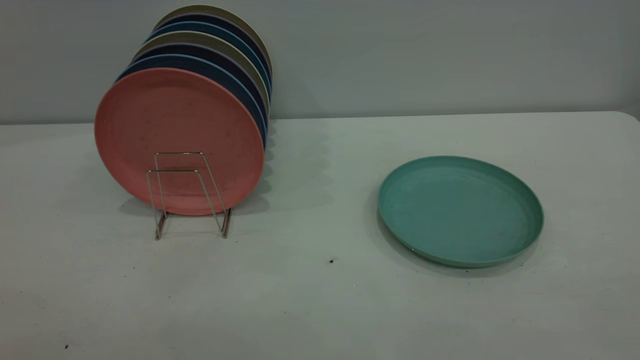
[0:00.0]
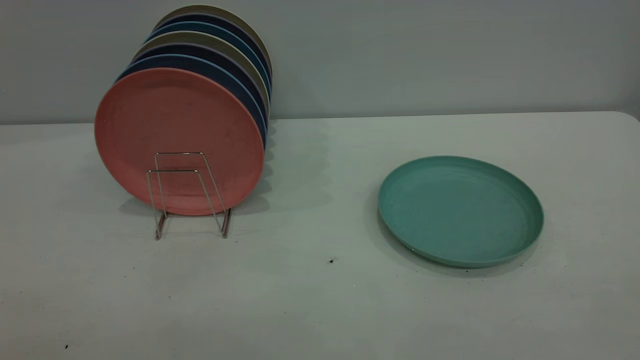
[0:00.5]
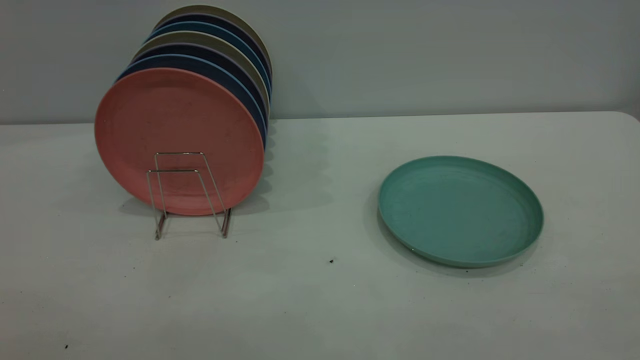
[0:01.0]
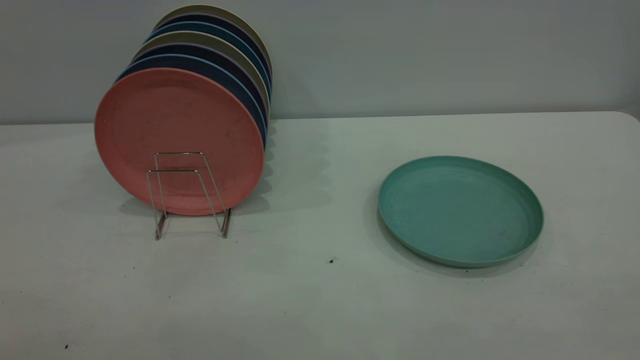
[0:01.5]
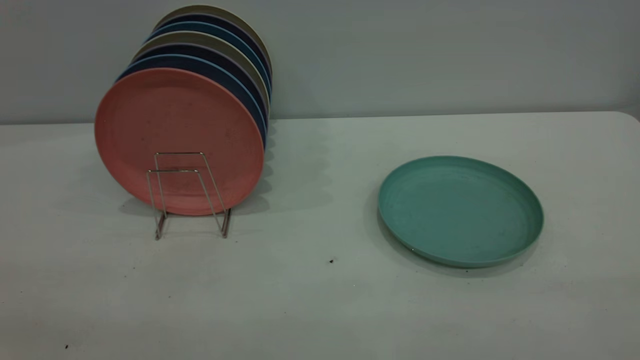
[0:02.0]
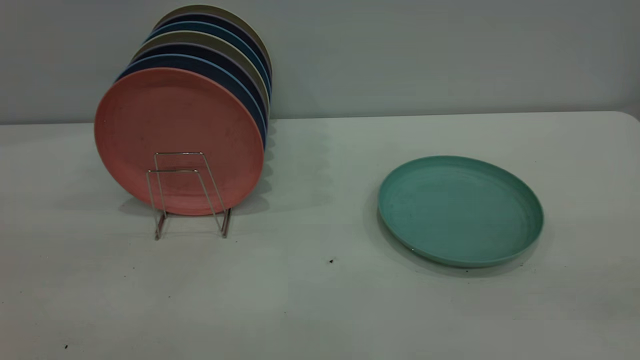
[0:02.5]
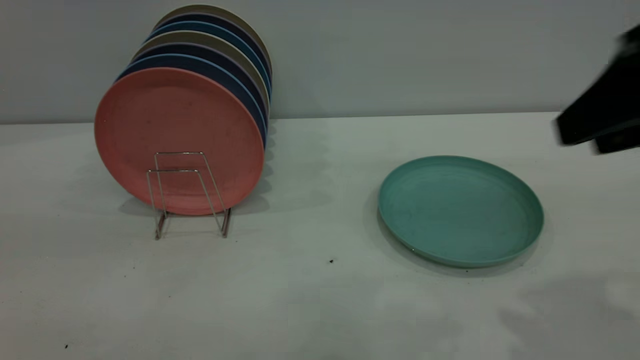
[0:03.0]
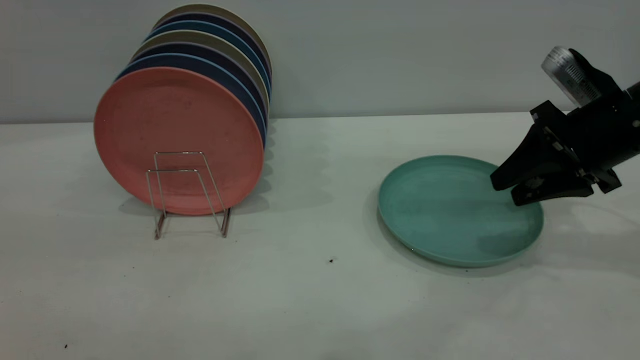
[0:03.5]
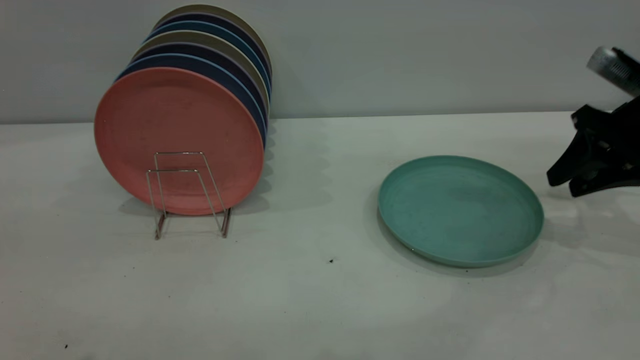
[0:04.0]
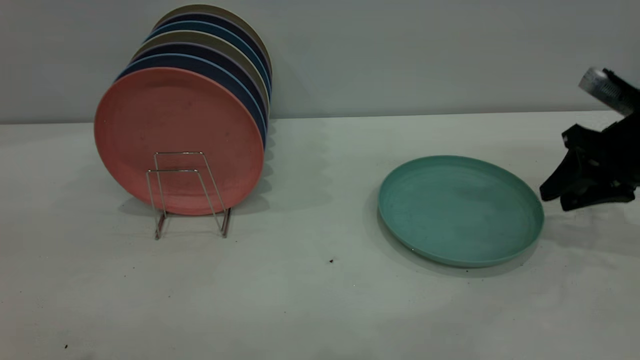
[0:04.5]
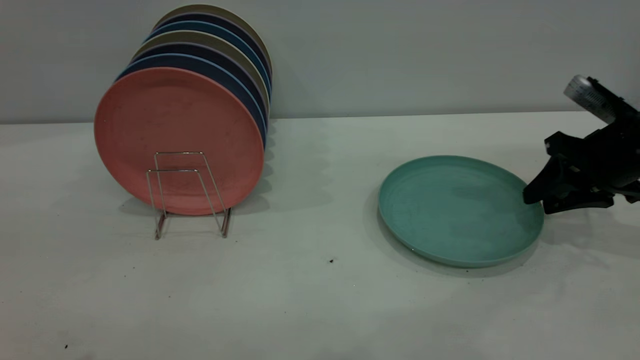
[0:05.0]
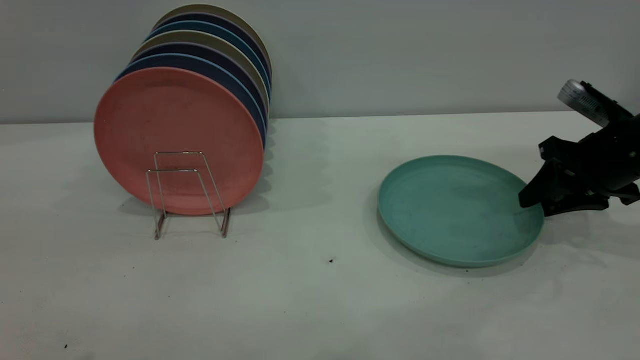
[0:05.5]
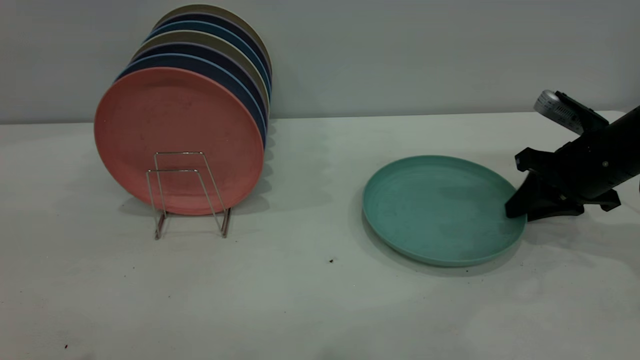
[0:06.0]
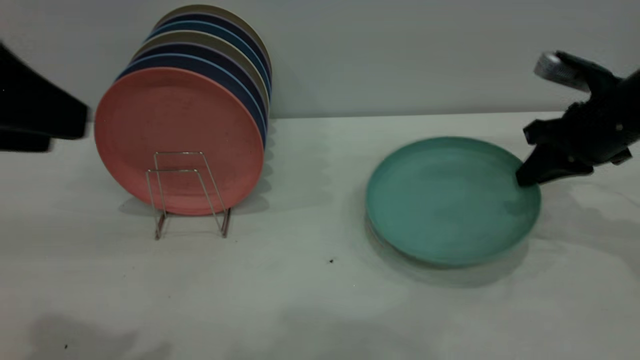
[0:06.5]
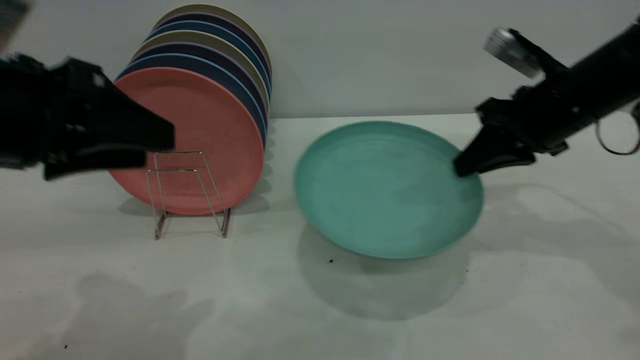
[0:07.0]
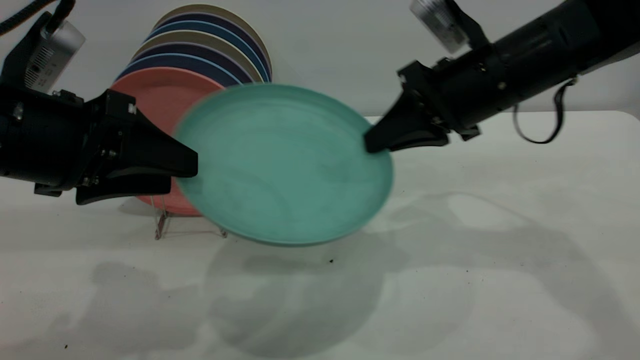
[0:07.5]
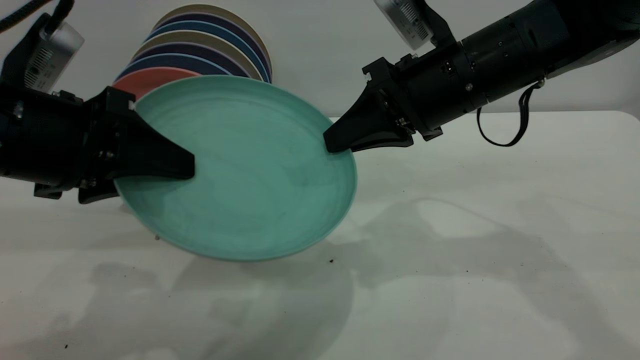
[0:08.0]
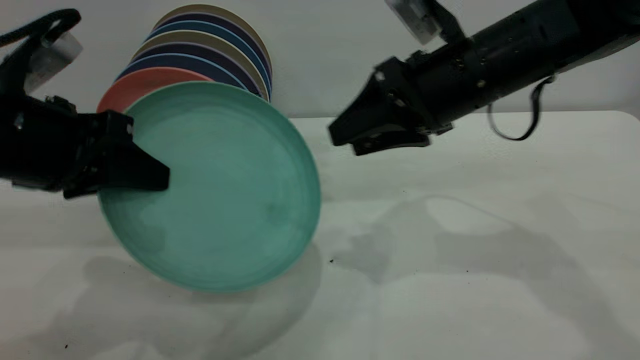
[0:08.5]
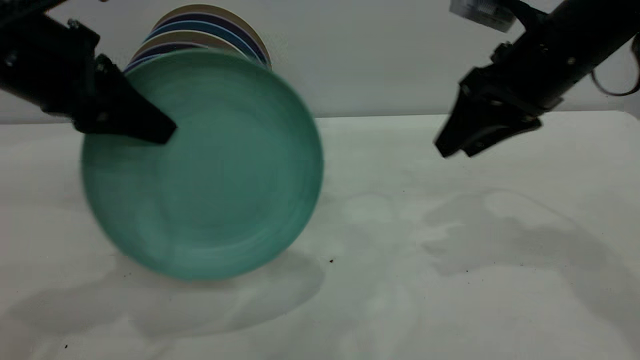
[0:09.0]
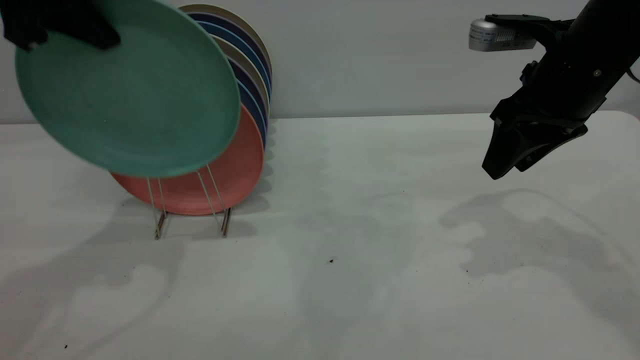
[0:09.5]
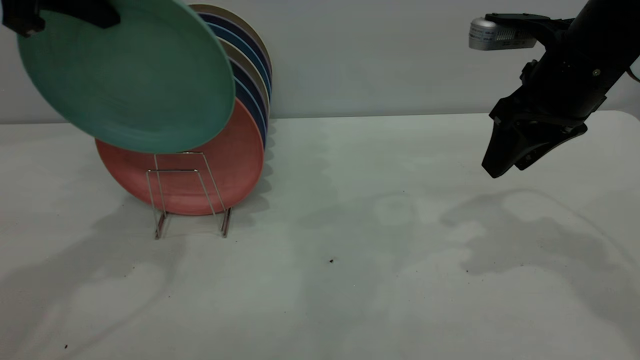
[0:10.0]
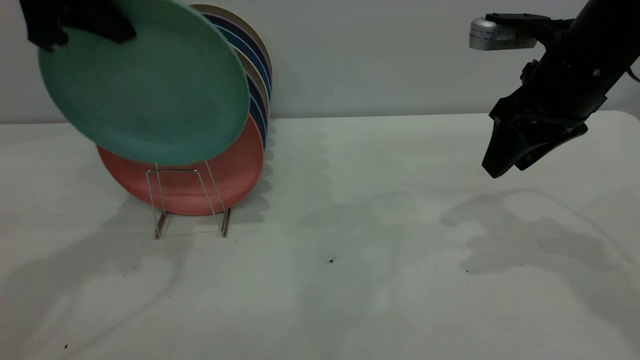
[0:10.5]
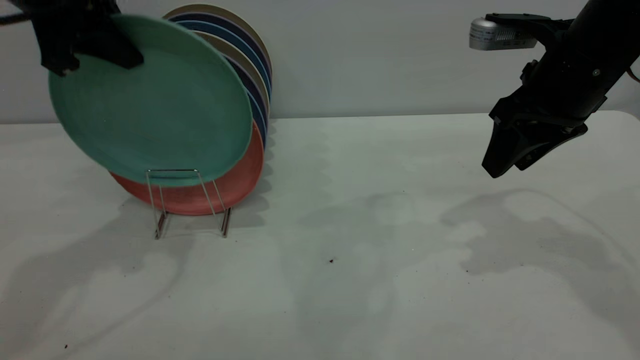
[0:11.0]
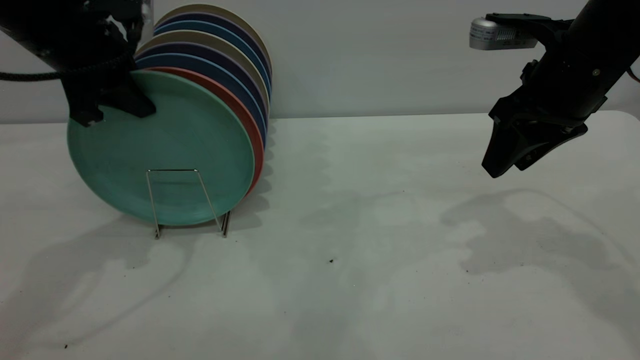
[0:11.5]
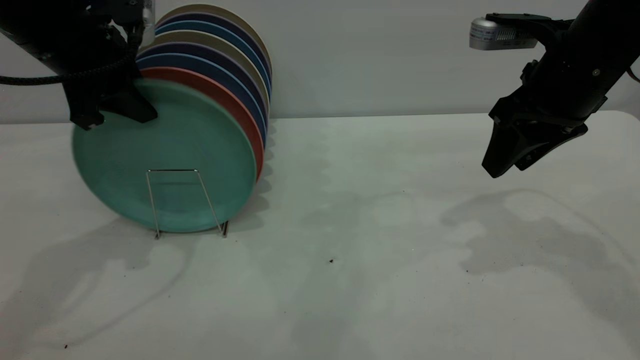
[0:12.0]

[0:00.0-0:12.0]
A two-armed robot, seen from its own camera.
Task of the whole recording: the right gripper grasp the green plate, the right gripper pass the green plate to the left gripper, and the left gripper place the green plate on the plate rack.
Step, 0:00.0 to 0:06.5: Pick up the plate with the right gripper.
Step, 0:07.0 to 0:08.5: Pass the plate from the right gripper to the left gripper.
0:02.0 to 0:04.0: The right gripper is displaced forward and downward by some 50 cm.
0:04.0 to 0:06.0: The right gripper moves downward, about 5 cm, and closes its fingers.
0:06.0 to 0:08.0: The right gripper shifts some 20 cm to the left and upward, while the left gripper shifts some 20 cm downward and forward, and closes up.
0:08.0 to 0:10.0: The right gripper moves to the right, some 10 cm, and opens up. The left gripper is displaced upward and forward by roughly 20 cm, and closes its fingers.
0:10.0 to 0:12.0: The left gripper shifts roughly 10 cm downward, and opens.

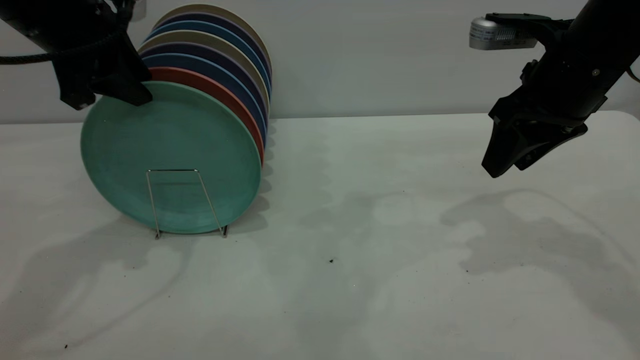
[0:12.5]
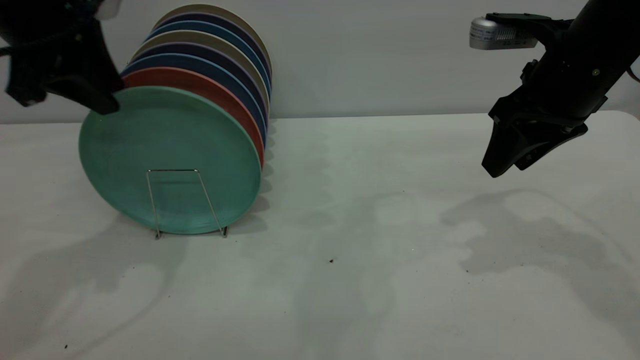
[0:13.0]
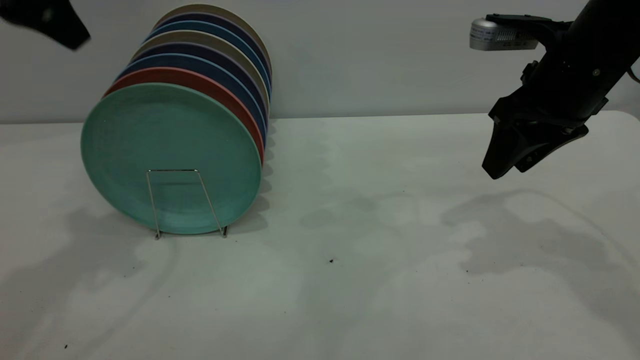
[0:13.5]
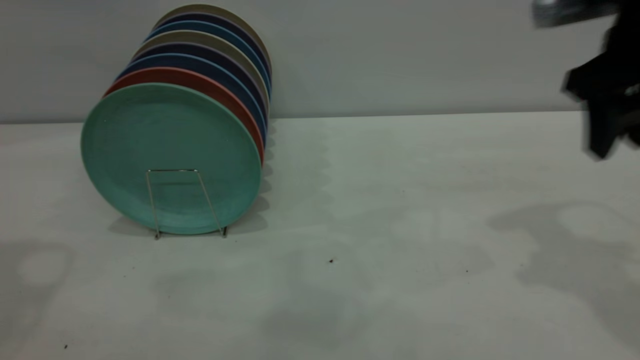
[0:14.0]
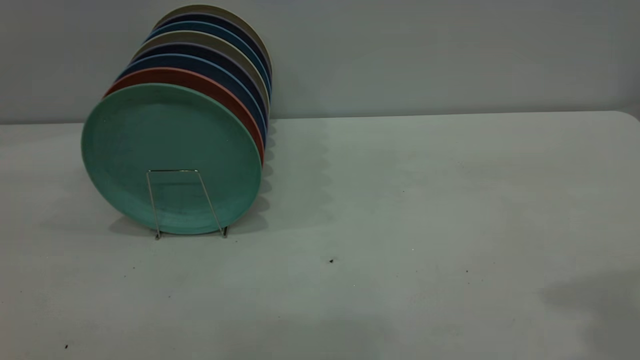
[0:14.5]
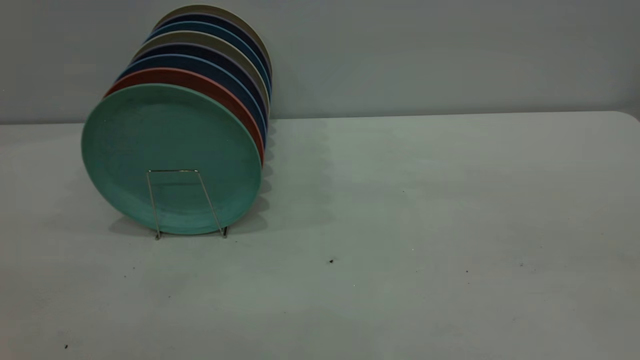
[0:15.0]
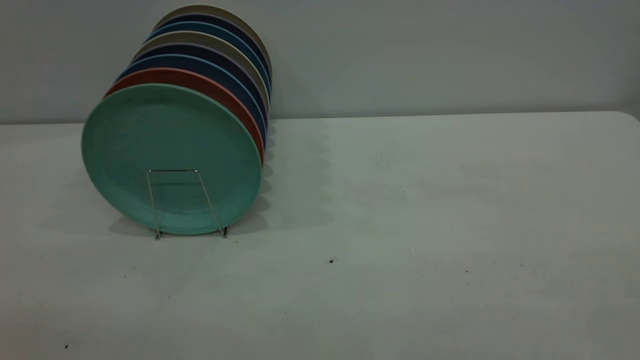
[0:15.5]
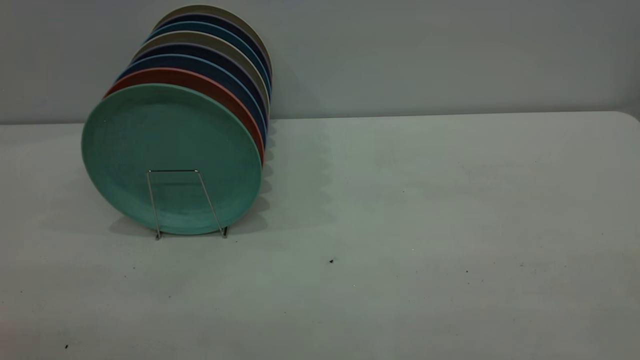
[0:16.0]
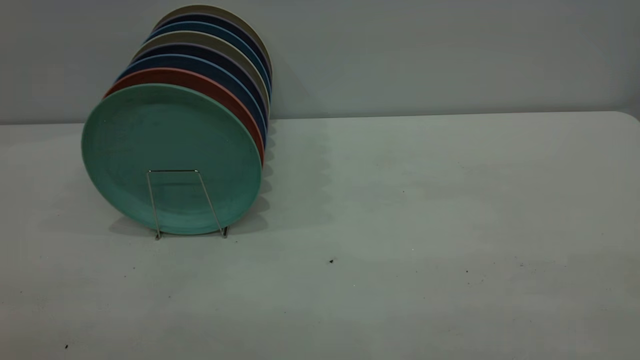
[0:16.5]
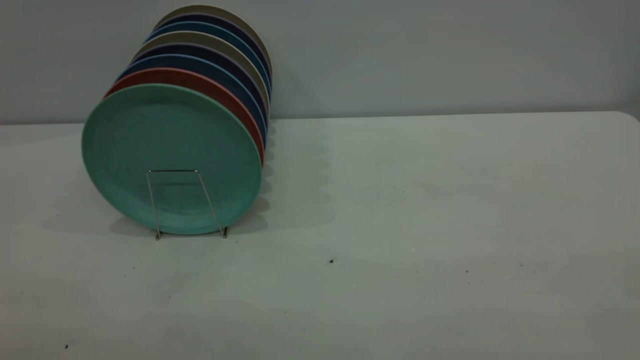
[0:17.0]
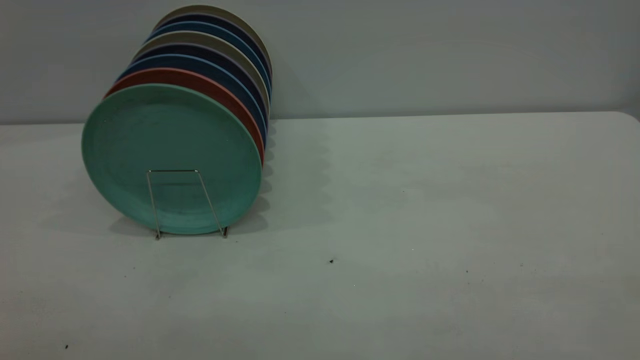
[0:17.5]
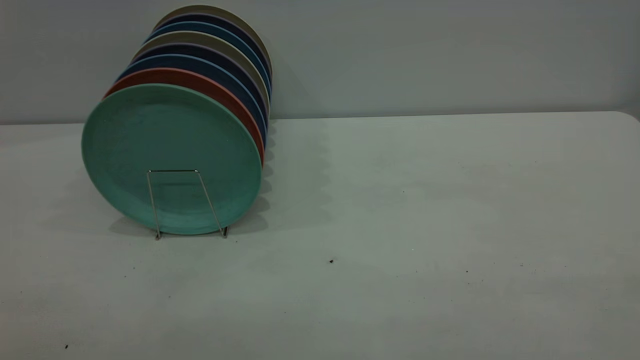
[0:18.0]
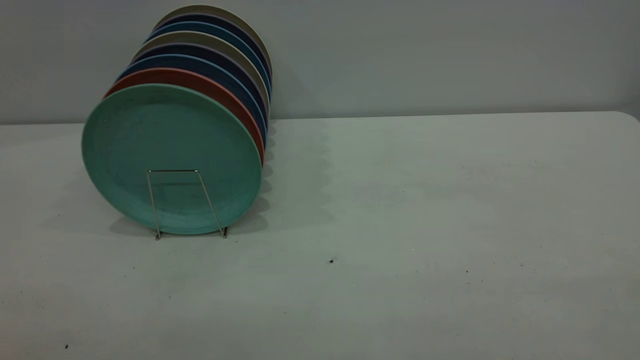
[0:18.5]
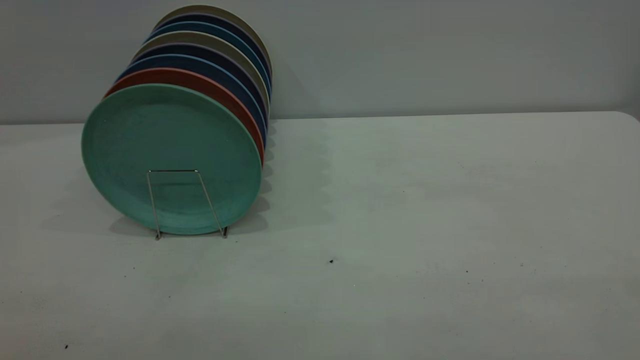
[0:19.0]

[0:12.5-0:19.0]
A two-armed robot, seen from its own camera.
Task of the whole recording: the right gripper grasp the green plate, the right gripper pass the green plate to the left gripper, and the left gripper place the green plate on the plate rack.
0:12.5 to 0:14.5: The left gripper travels backward and upward by roughly 30 cm. Meanwhile the right gripper travels upward and backward by approximately 30 cm.

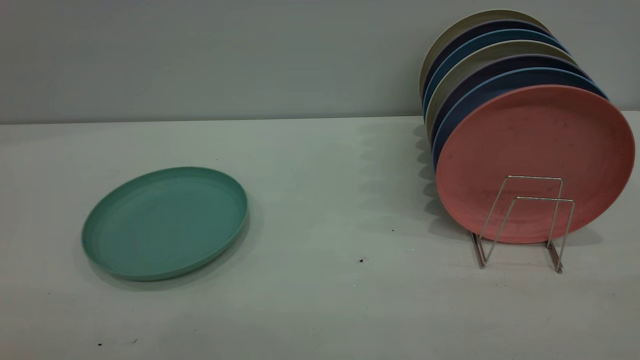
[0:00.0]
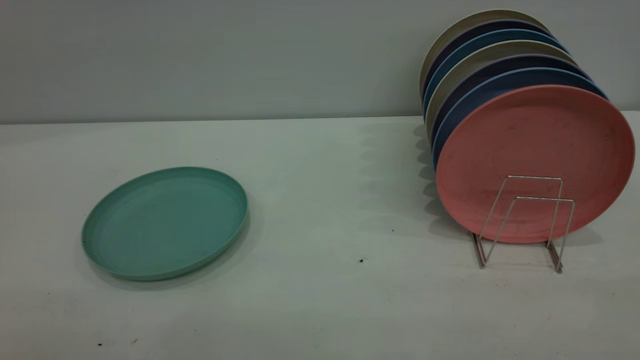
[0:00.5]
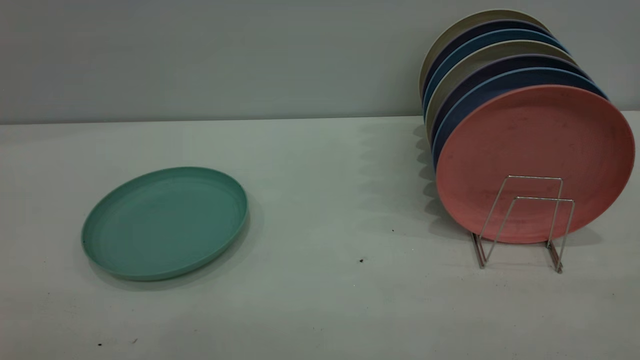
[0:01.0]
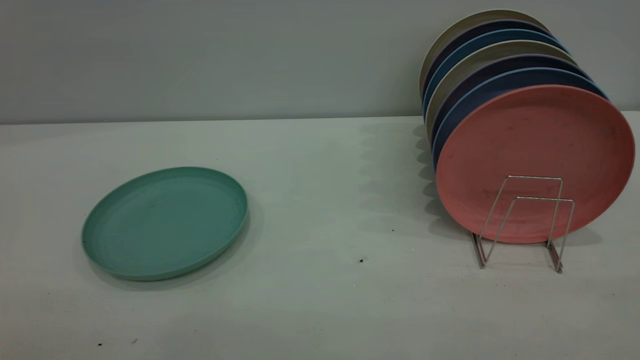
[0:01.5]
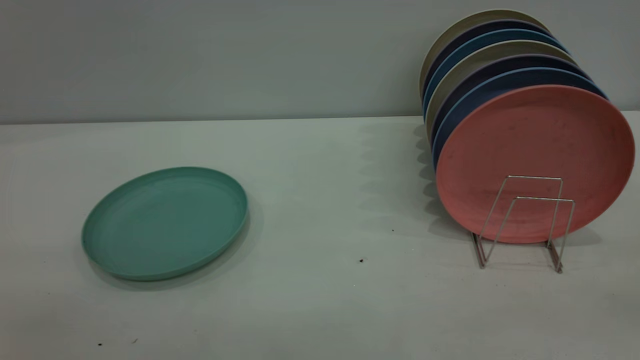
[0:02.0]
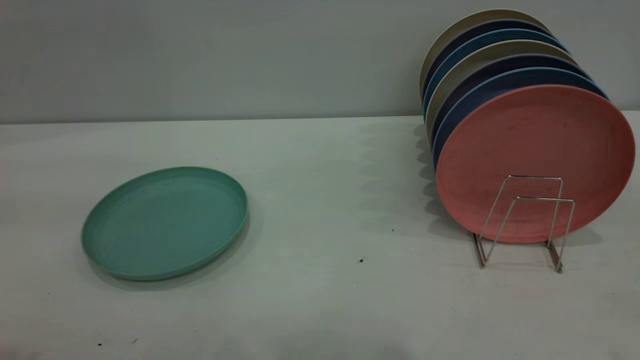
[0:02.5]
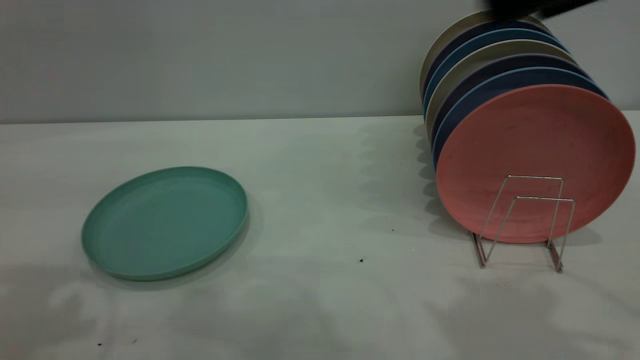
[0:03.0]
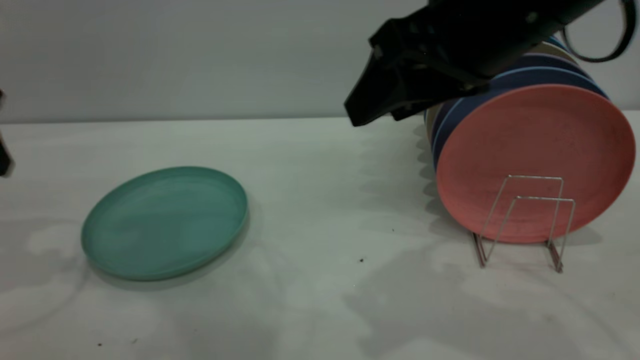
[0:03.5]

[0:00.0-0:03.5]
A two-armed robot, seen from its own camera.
Task of the whole recording: the left gripper grasp the green plate, the left gripper pass the green plate to the right gripper, and the right gripper place the green plate on the plate rack.
0:02.0 to 0:03.5: The right gripper goes roughly 30 cm forward and to the left, while the left gripper heads forward and downward, covering about 35 cm.
